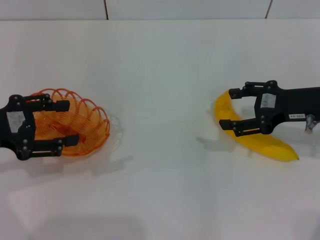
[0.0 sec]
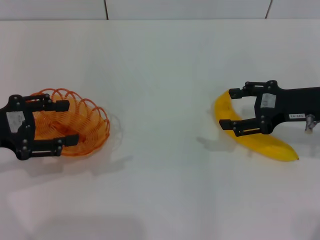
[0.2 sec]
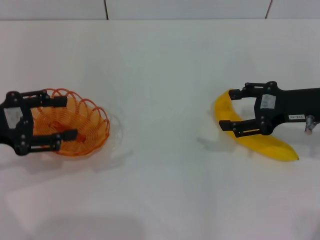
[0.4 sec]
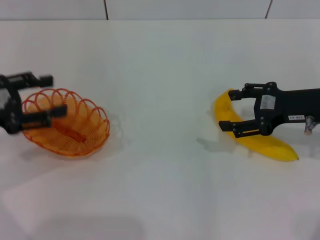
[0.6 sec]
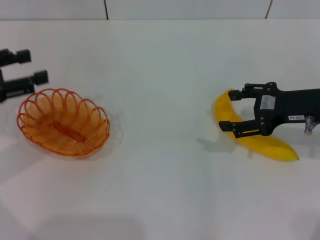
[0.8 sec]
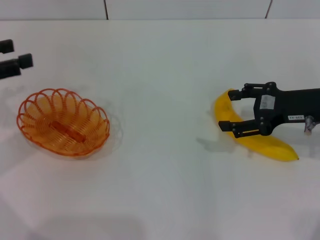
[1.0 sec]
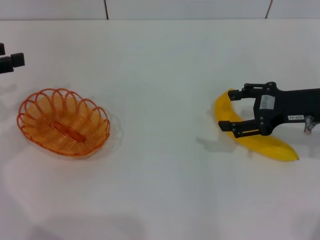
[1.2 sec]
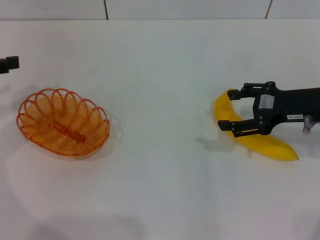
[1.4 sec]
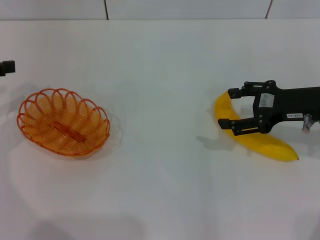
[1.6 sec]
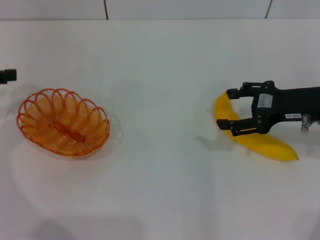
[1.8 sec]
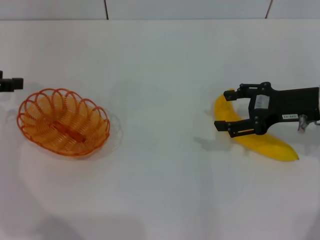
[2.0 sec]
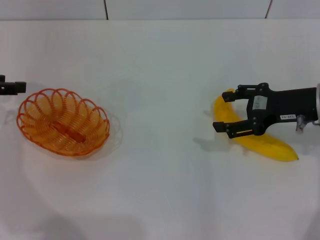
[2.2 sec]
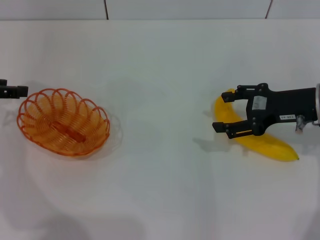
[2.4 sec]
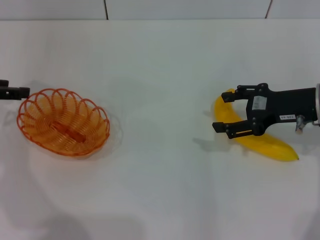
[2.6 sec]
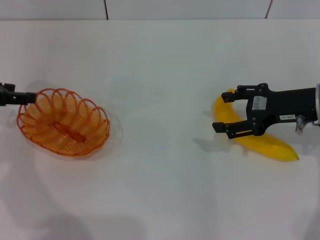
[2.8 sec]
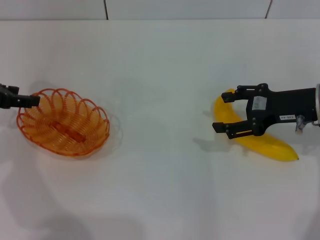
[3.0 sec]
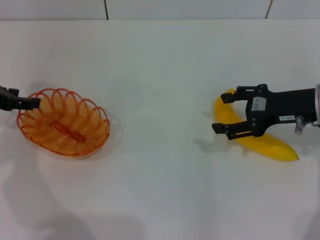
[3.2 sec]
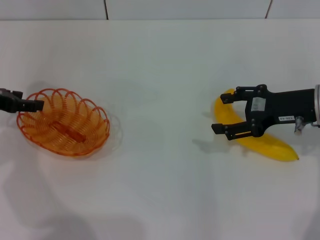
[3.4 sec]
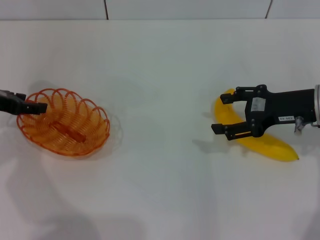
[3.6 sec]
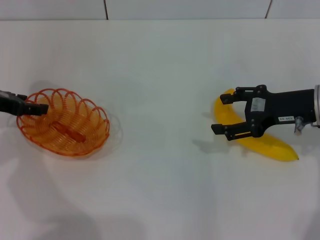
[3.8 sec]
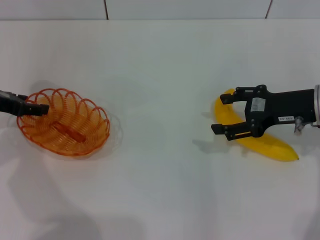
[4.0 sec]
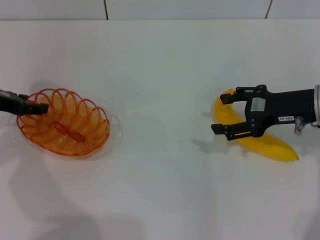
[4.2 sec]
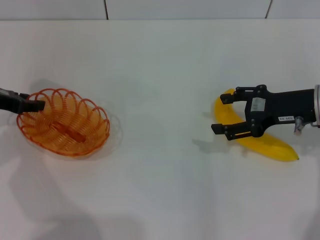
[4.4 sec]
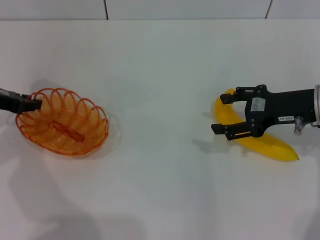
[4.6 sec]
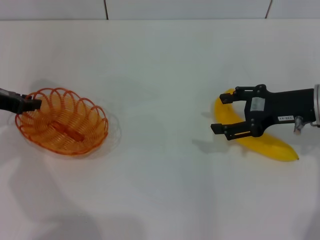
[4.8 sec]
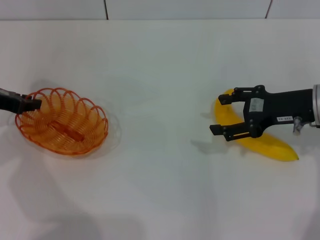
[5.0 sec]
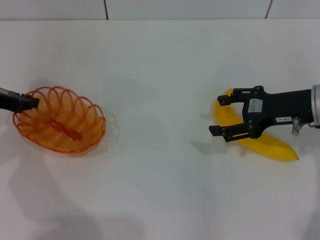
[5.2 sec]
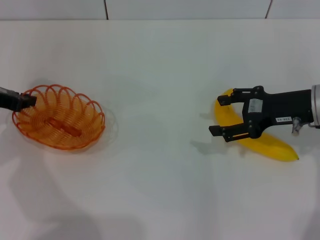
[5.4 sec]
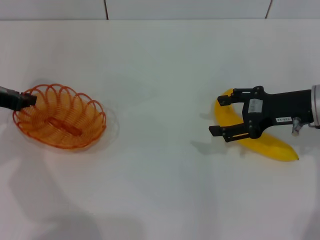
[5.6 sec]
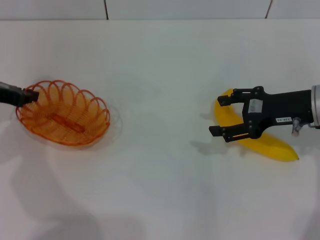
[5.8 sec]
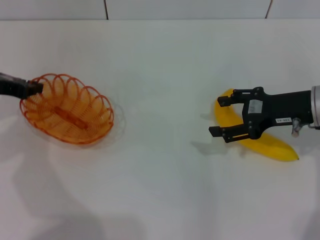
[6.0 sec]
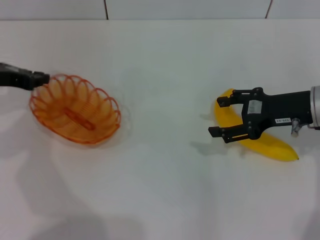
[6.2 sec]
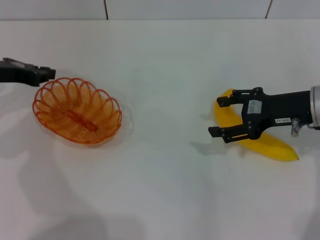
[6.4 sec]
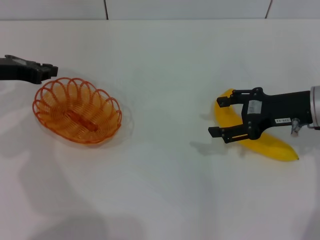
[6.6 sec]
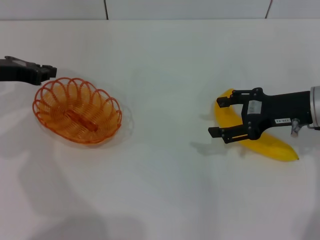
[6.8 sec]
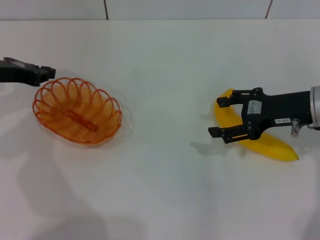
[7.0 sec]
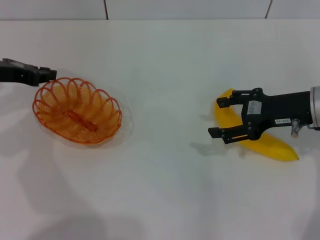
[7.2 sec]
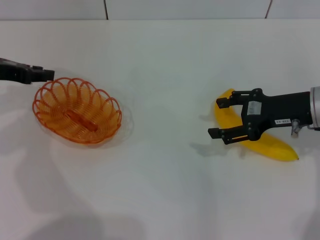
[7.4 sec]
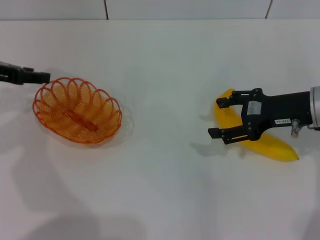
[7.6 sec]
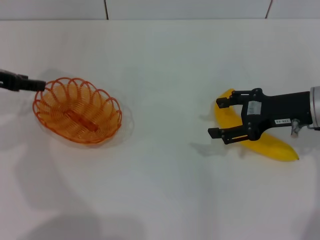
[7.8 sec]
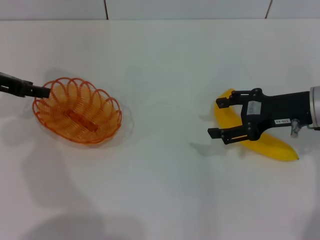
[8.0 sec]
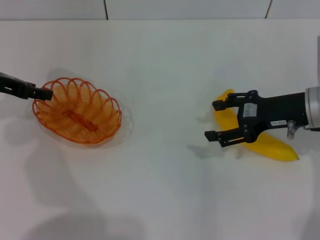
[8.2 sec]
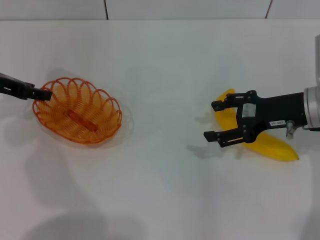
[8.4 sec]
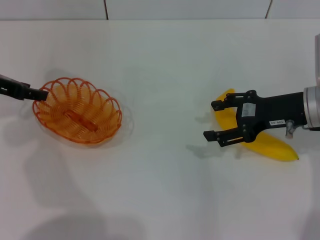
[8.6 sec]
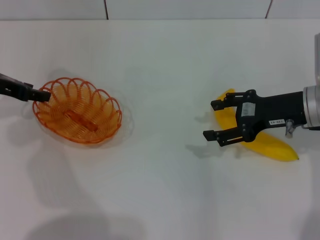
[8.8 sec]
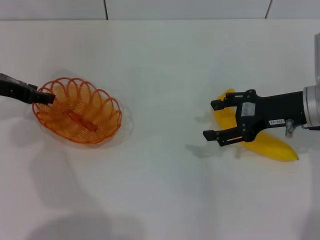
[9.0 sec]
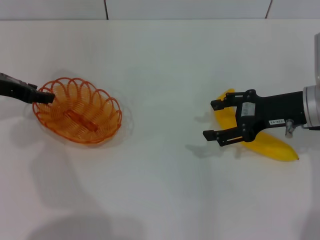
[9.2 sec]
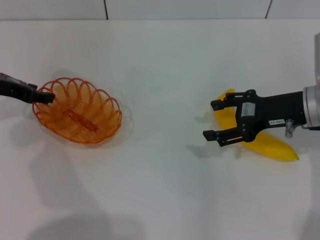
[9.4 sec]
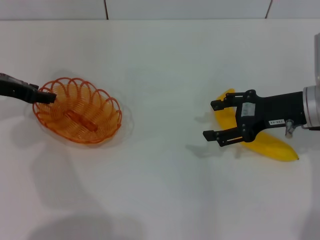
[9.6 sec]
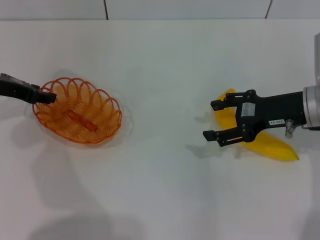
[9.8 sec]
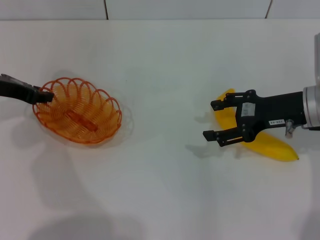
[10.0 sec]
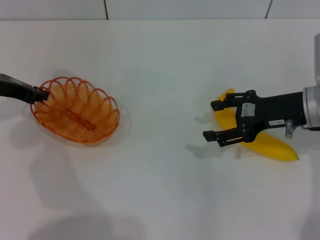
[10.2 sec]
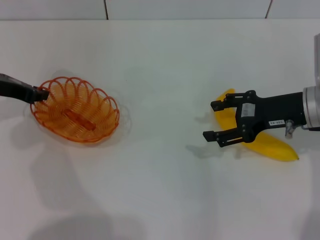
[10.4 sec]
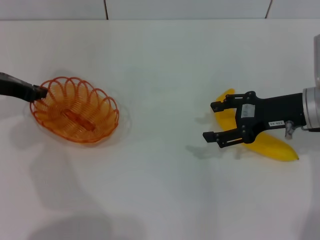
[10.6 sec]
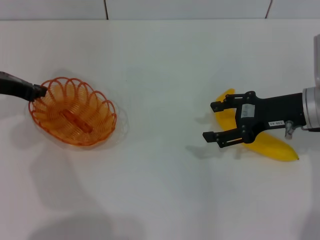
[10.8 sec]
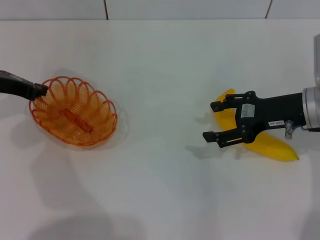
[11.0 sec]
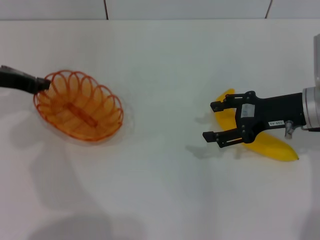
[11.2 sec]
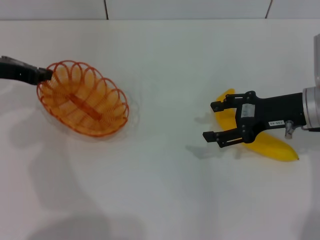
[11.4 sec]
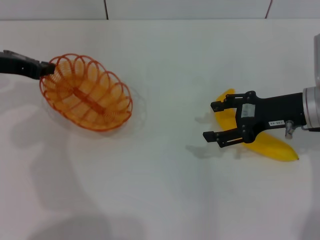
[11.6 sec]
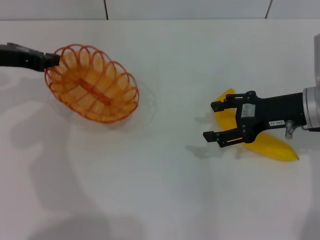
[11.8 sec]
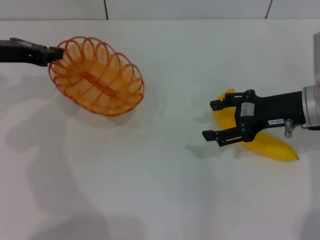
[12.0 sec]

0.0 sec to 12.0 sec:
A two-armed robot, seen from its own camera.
Step, 0.0 sec to 11.8 sec: Pick up the basket with the left gripper.
0.0 sec to 1.6 sec: The left gripper shifts about 10 cm to the left and forward.
1.6 sec to 3.0 sec: The left gripper shifts by about 5 cm.
3.0 sec to 4.4 sec: The grippers make only small movements.
4.4 sec to 6.0 sec: The left gripper closes its fingers.
6.0 sec to 7.6 sec: The left gripper opens.
7.6 sec to 9.0 sec: There are only small adjustments of the grippers.
9.0 sec to 10.4 sec: The left gripper closes its fingers.
10.4 sec to 12.0 sec: The left gripper closes its fingers.

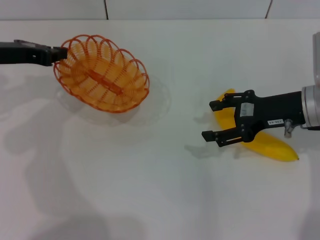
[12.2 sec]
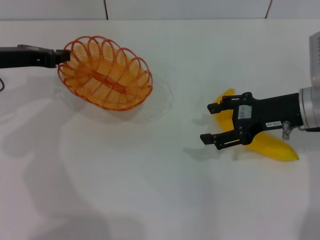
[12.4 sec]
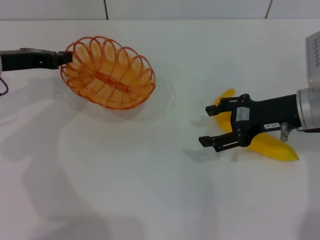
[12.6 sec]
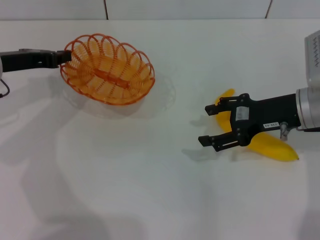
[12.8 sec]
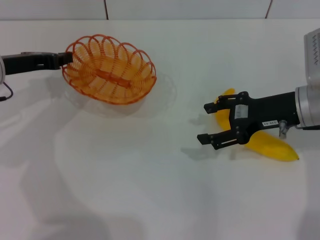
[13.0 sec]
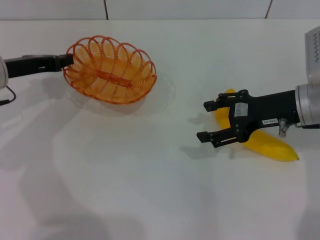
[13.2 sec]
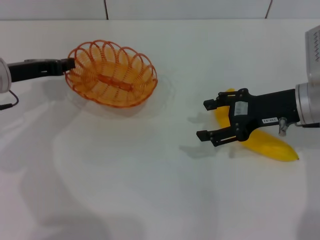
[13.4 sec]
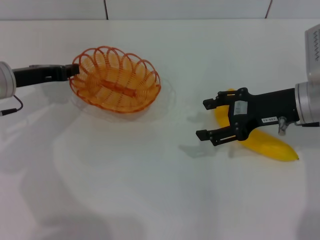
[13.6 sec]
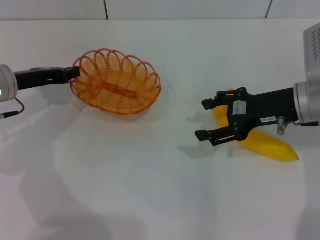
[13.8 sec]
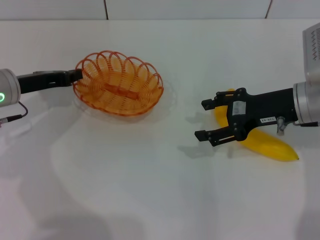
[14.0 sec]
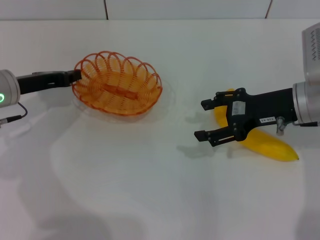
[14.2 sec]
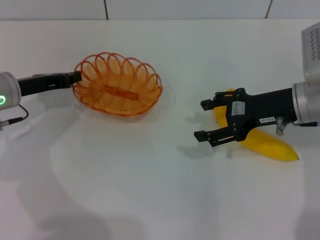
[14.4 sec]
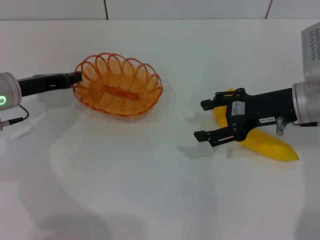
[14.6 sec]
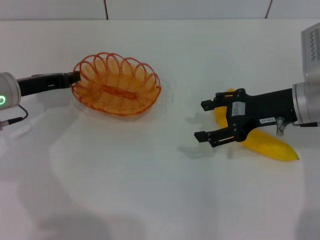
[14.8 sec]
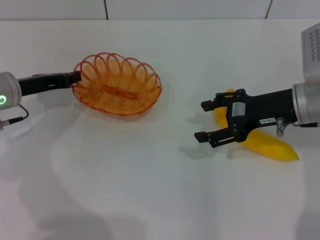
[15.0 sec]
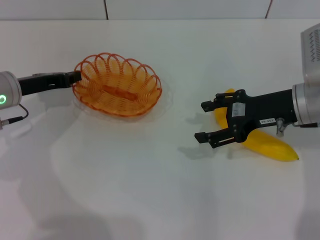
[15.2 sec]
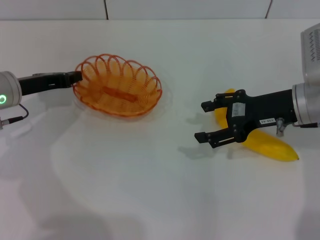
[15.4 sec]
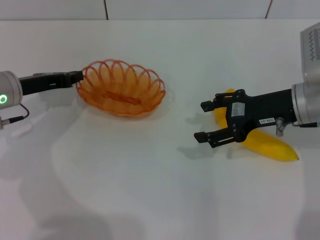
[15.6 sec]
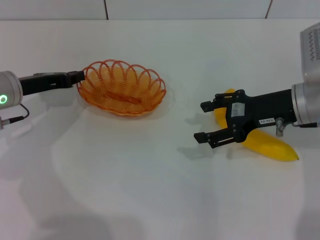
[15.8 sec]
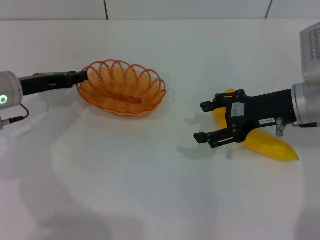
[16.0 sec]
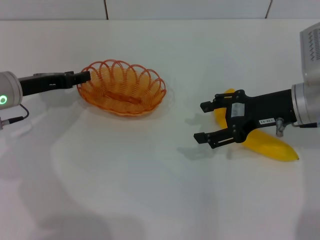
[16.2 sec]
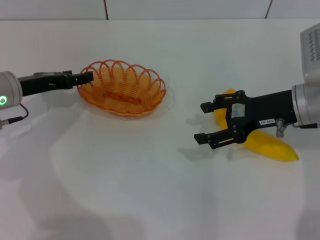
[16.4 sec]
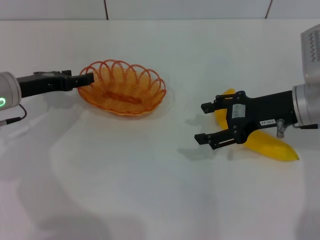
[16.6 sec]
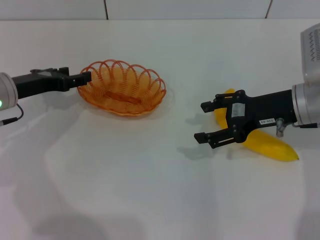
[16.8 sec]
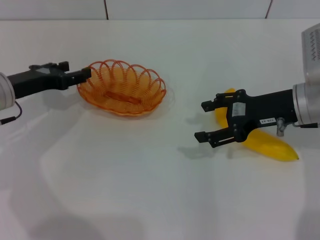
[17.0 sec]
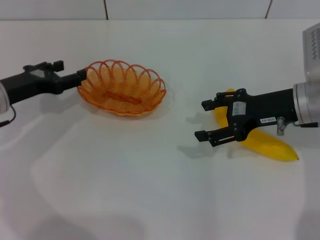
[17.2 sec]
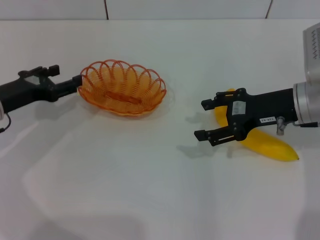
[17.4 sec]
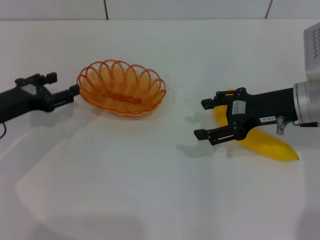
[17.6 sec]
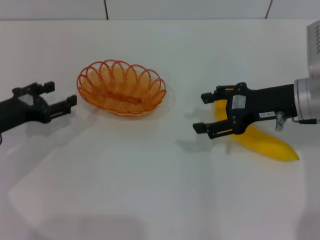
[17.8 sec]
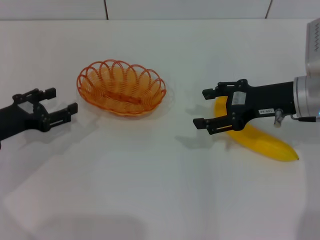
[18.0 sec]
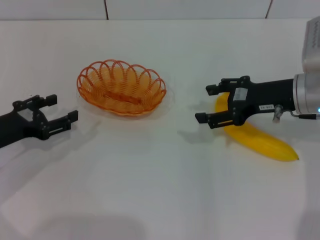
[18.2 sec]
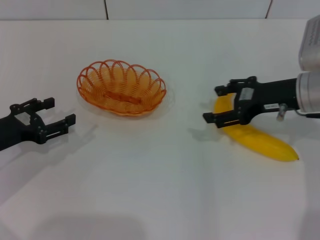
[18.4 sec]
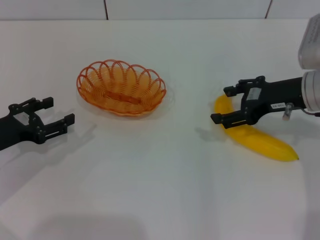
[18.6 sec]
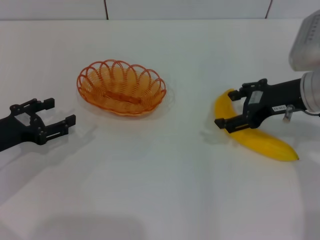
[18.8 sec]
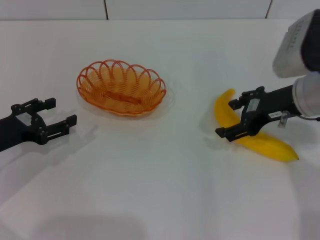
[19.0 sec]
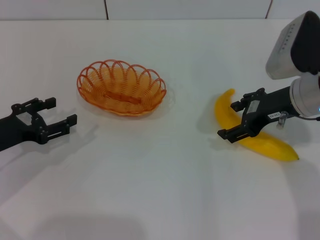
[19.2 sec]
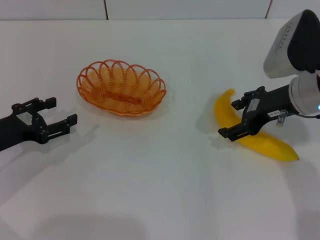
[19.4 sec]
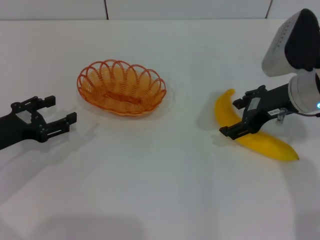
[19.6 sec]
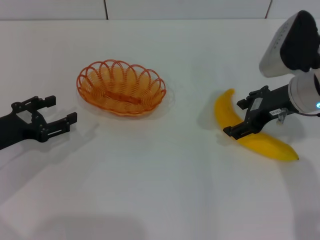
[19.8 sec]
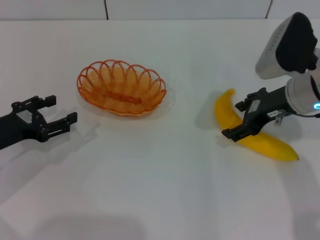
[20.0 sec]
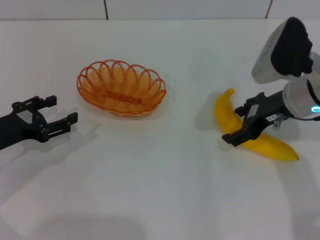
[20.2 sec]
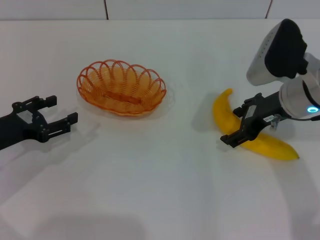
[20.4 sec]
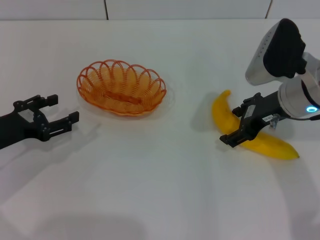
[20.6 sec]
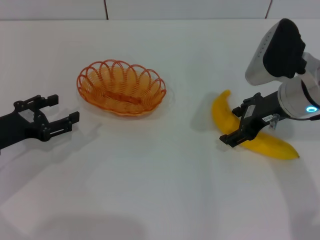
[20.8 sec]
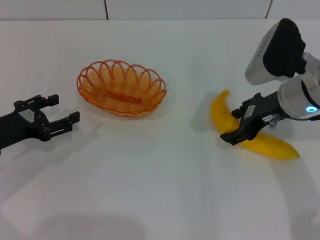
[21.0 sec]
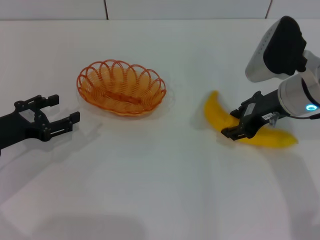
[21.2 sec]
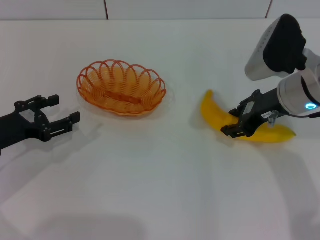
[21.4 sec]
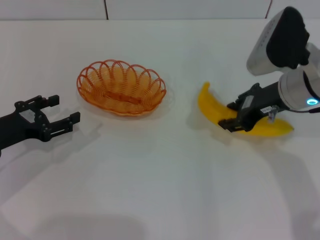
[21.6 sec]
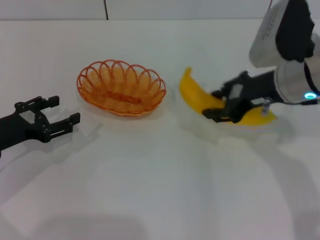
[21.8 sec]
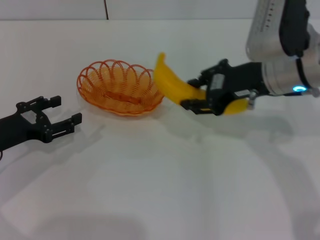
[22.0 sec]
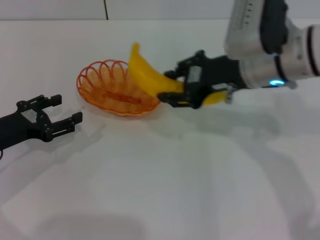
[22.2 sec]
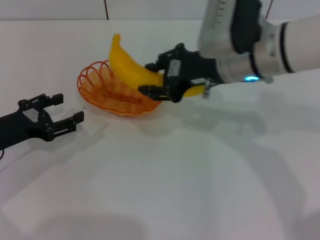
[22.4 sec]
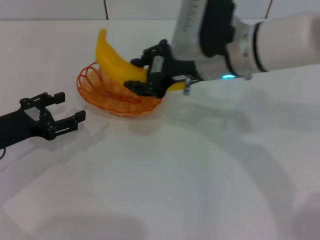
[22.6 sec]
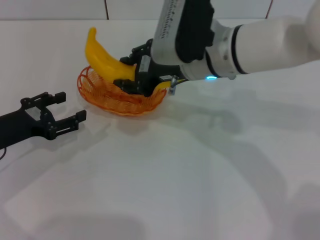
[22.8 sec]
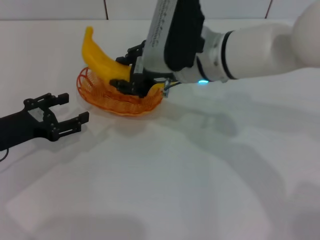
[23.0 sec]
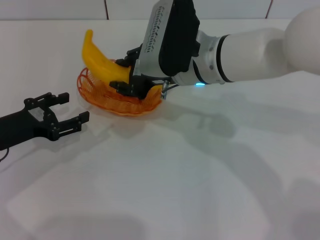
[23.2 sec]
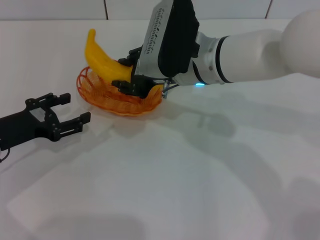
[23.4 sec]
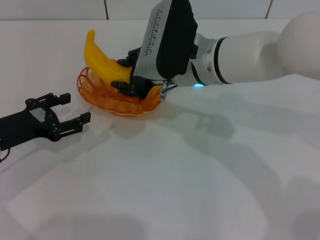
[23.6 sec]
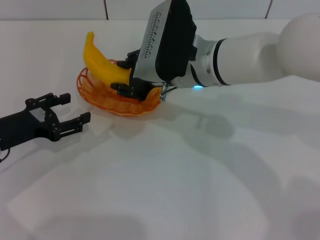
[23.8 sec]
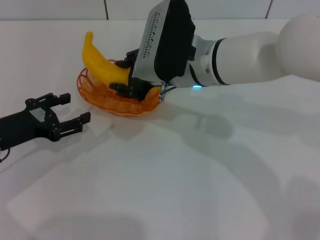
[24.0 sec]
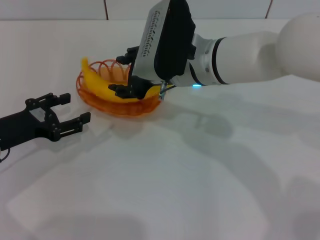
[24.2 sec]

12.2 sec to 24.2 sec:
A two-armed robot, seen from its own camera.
Step, 12.2 sec to 17.6 sec: Place the basket in the center of view with the left gripper.
Step, 17.8 sec to 21.6 sec: Pick up the banana with the right gripper.
12.2 sec to 13.8 sec: The left gripper heads downward, covering about 5 cm.
13.8 sec to 15.2 sec: Both grippers stay put.
15.2 sec to 16.6 sec: The left gripper opens up.
16.6 sec to 18.2 sec: The left gripper heads backward, covering approximately 10 cm.
19.8 sec to 21.2 sec: The grippers stay close to where they were, moving slightly.
21.2 sec to 22.6 sec: The right gripper shifts some 10 cm to the left, and closes up.
22.6 sec to 24.2 sec: The grippers move only a little.
